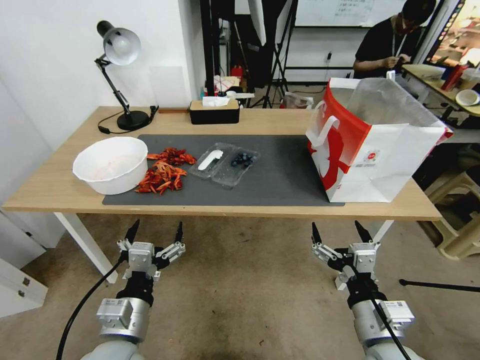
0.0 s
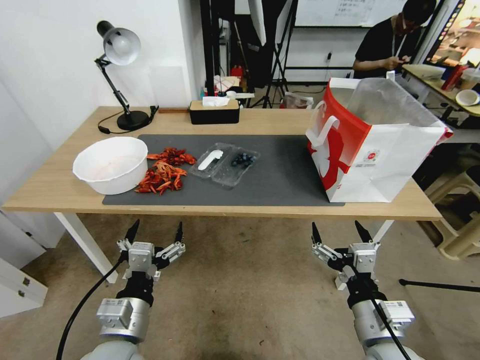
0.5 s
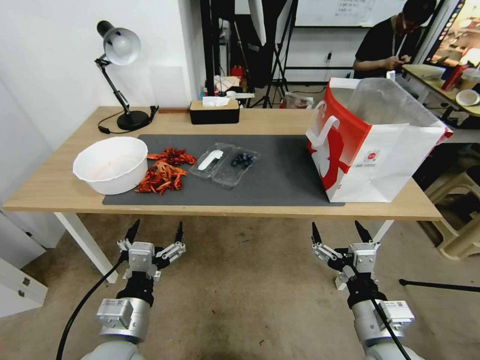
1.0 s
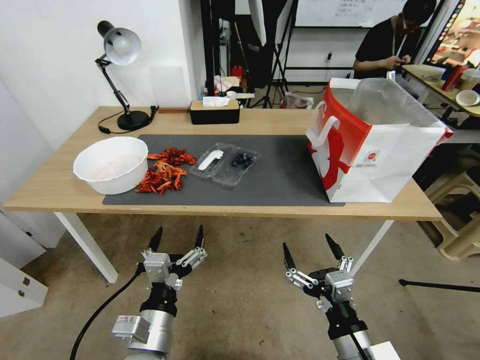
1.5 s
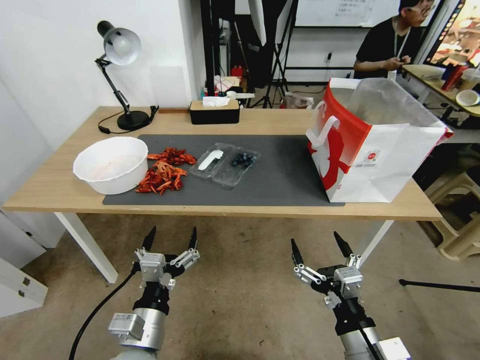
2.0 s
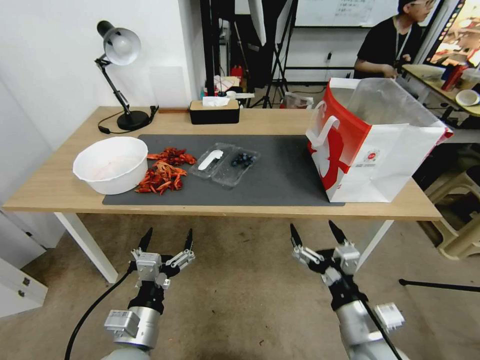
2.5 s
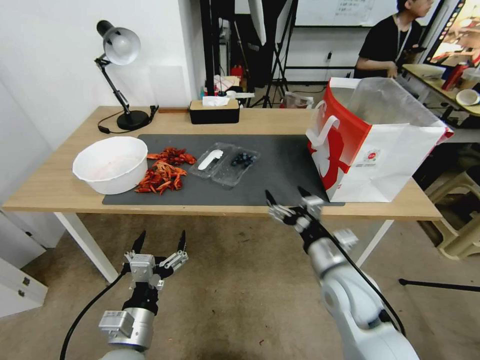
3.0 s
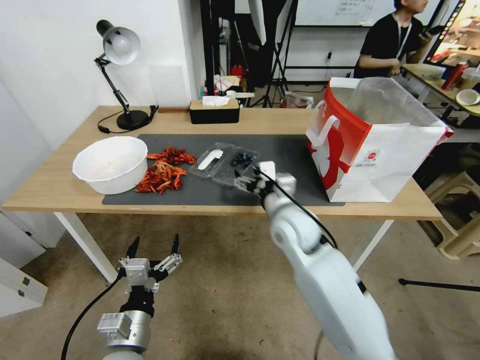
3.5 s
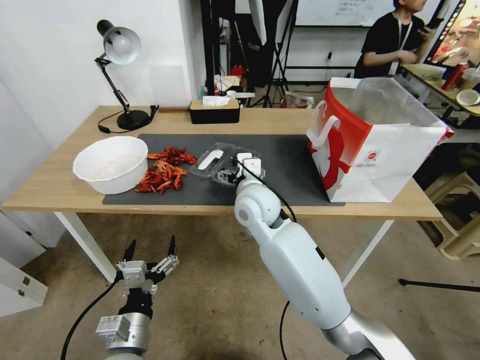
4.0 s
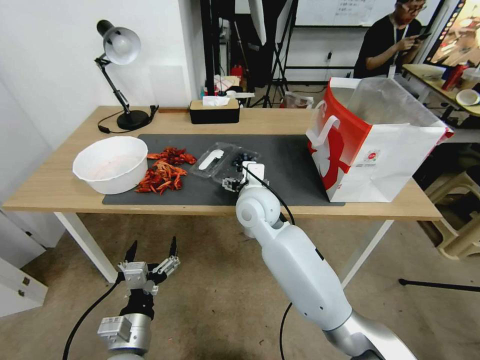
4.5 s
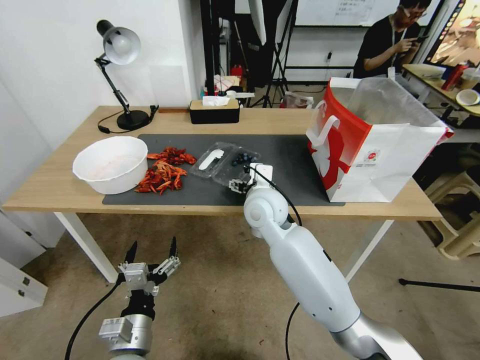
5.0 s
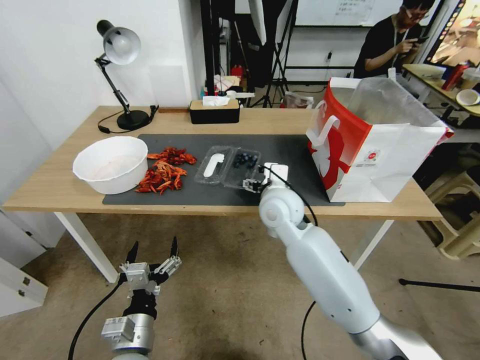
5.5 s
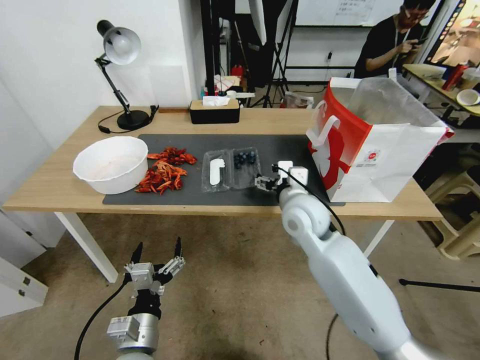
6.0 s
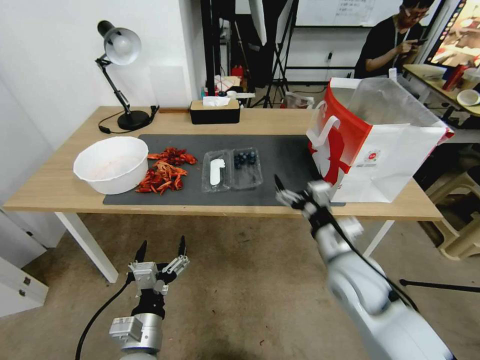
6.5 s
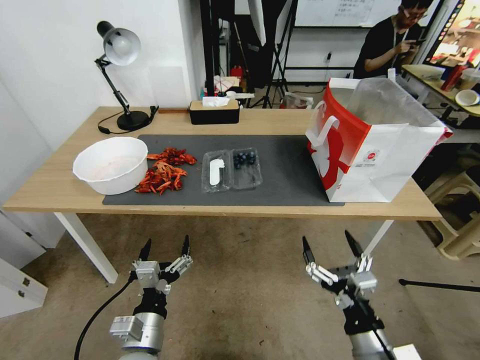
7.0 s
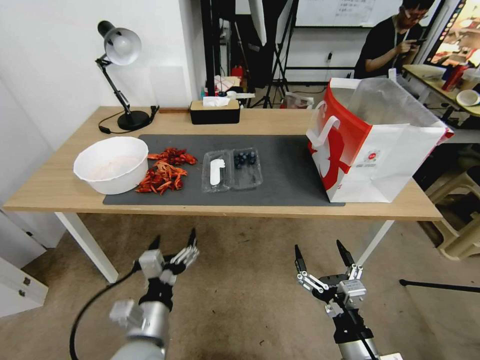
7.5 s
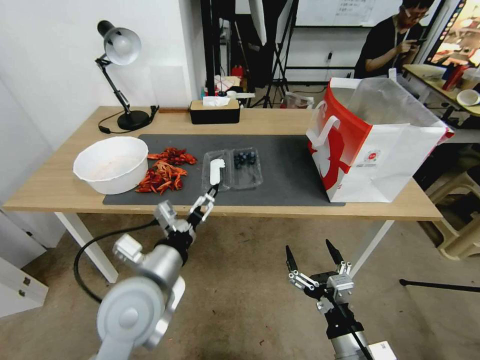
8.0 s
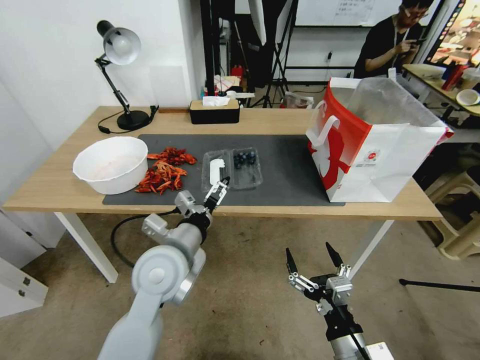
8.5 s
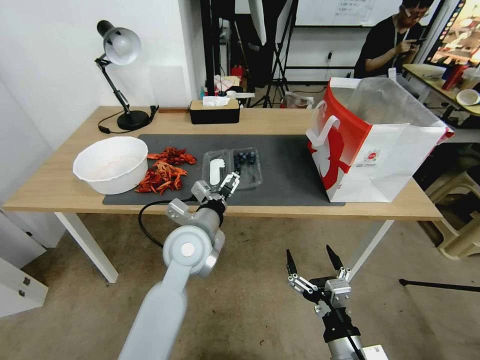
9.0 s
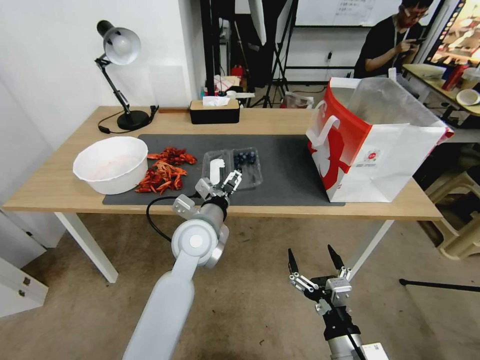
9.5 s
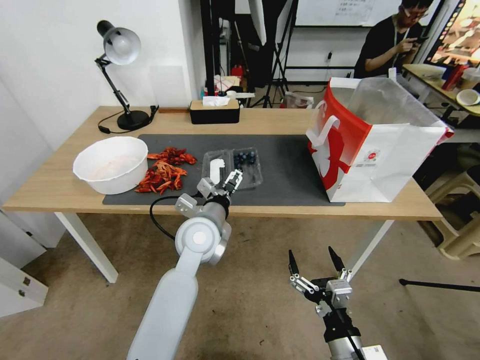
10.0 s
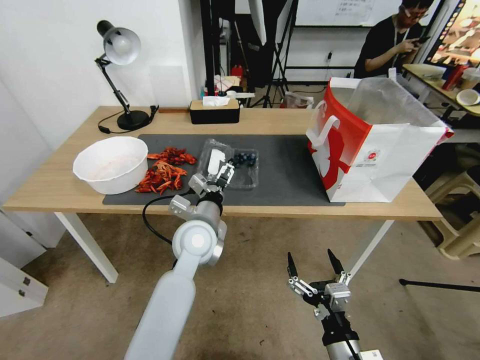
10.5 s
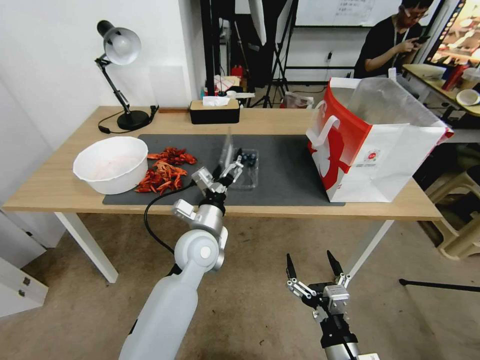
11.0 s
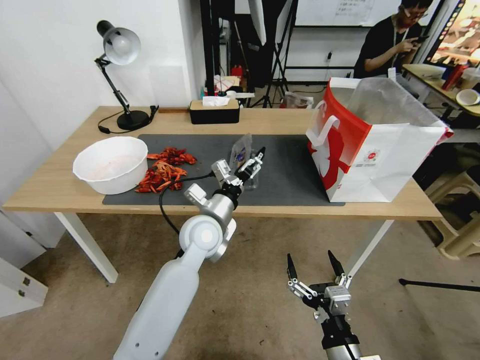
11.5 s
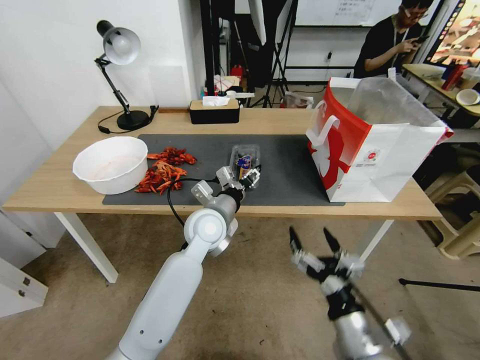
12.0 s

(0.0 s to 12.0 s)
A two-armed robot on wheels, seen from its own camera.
Task of the whole recording: Close the takeout container lid, then place the container into the takeout bag.
2.0 s - 4.0 s: The right gripper goes roughly 35 cm forward and to the left.
4.0 s - 6.0 s: The right gripper shifts about 10 cm to the right.
6.0 s - 8.0 s: The left gripper heads upward and forward, covering approximately 20 cm. Meanwhile the right gripper shifts roughly 30 cm backward and downward.
8.0 s - 10.0 s: The left gripper goes roughly 15 cm forward and to the right.
10.0 s - 12.0 s: The left gripper closes its fingers.

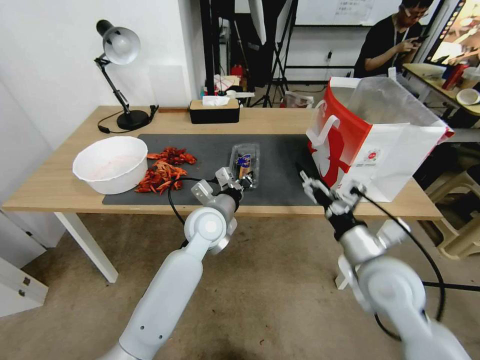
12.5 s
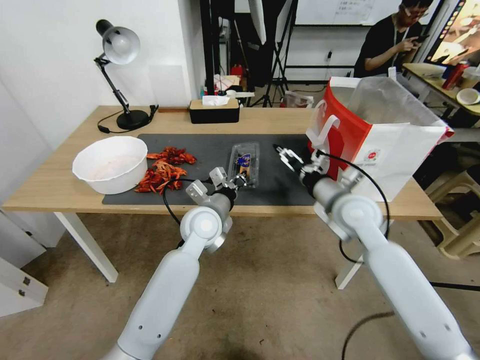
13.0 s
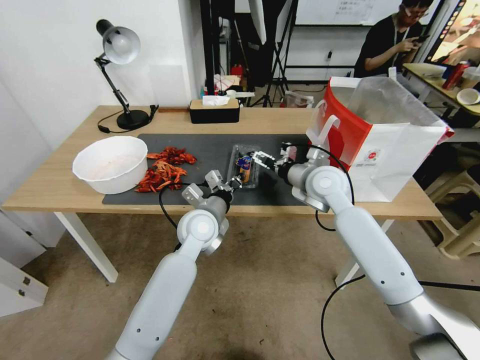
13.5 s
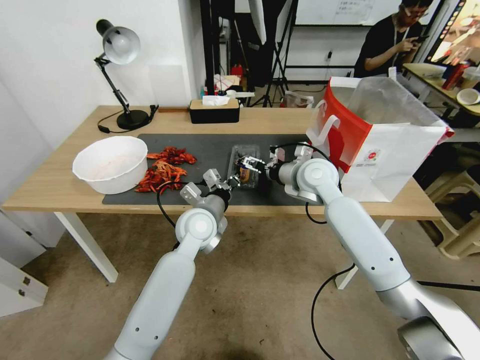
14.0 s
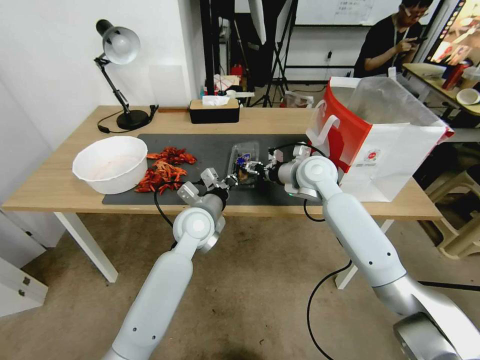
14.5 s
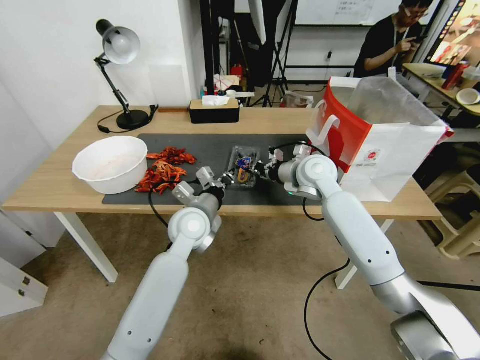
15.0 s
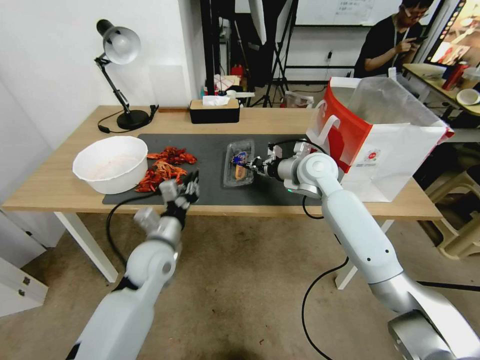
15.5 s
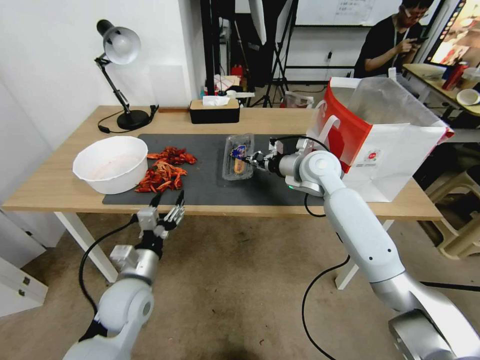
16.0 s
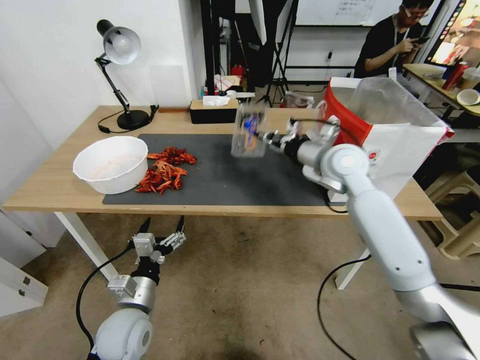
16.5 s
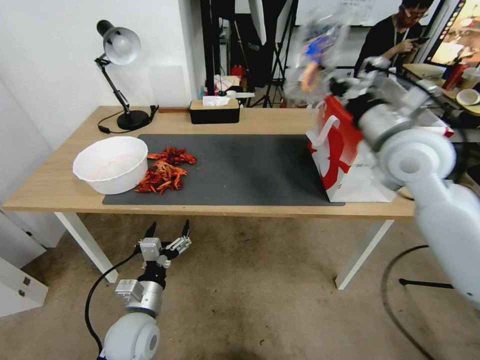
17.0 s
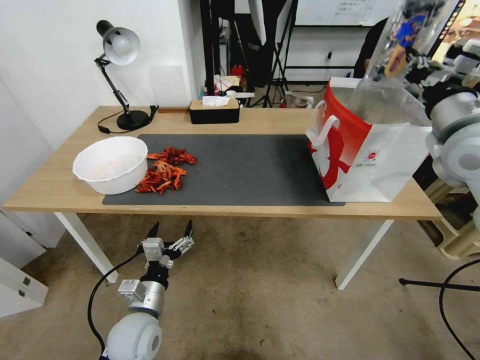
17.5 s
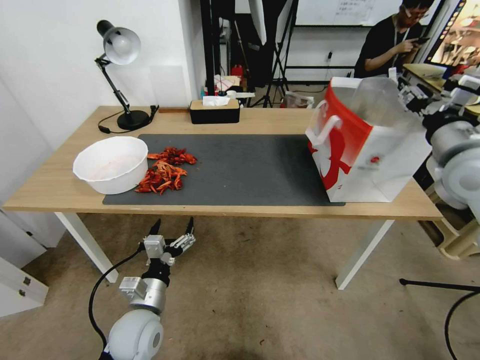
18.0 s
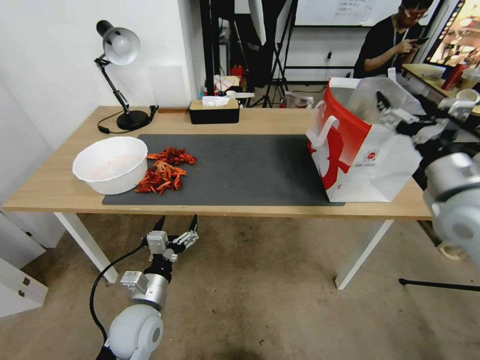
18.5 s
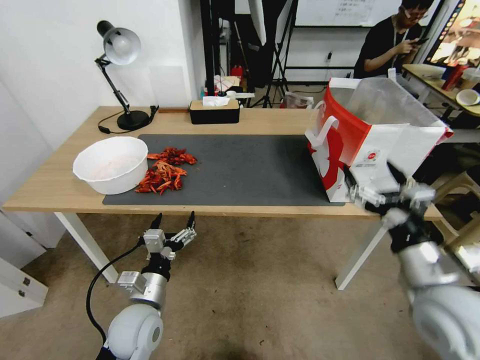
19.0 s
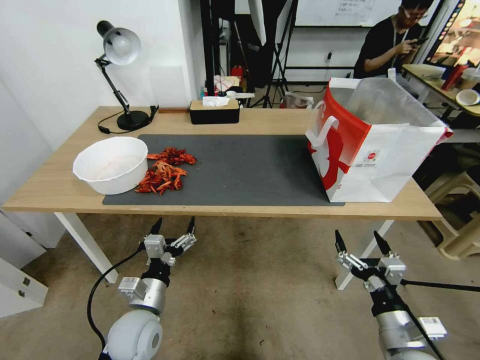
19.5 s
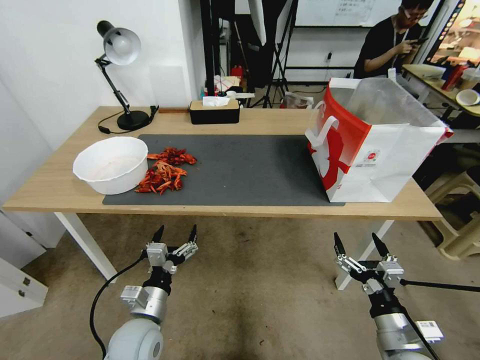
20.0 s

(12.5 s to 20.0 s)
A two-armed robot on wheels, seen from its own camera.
Task of the whole recording: Close the takeout container lid, then place the container into the takeout bag.
12.5 s - 14.5 s: The right gripper moves forward, roughly 25 cm, and closes.
14.5 s - 16.5 s: The right gripper moves upward, roughly 5 cm, and closes up. The left gripper travels backward, to the left and downward by approximately 25 cm, and opens.
16.5 s - 18.0 s: The right gripper goes roughly 20 cm to the right, backward and upward, and opens up.
18.0 s - 20.0 s: The right gripper goes roughly 40 cm downward and backward, and opens up.

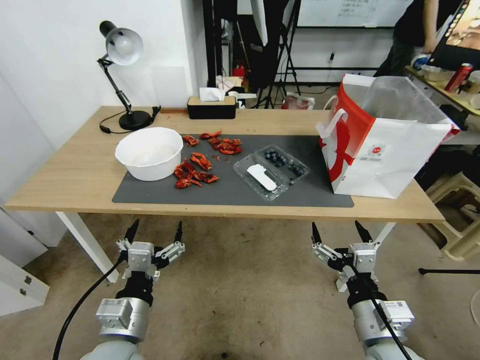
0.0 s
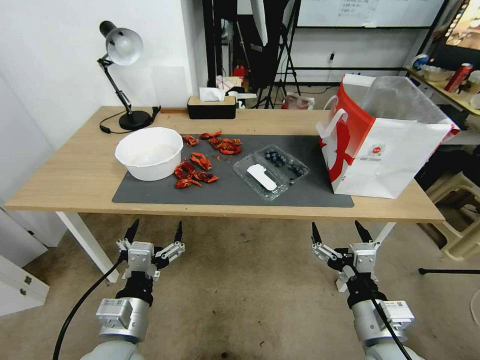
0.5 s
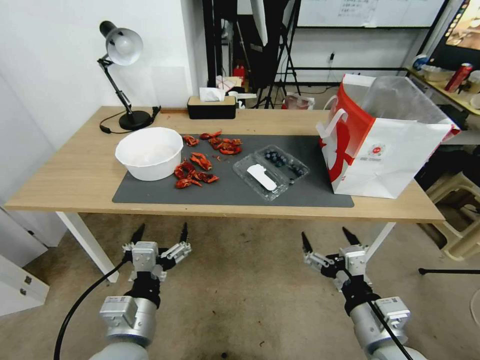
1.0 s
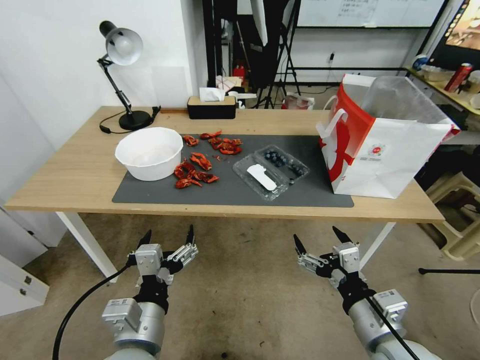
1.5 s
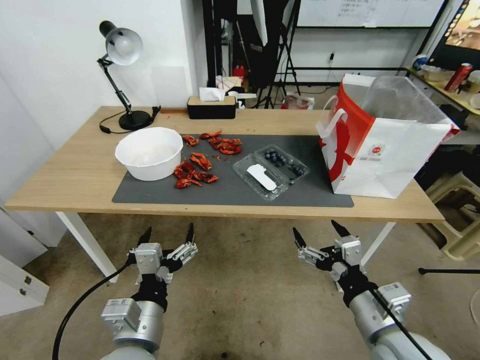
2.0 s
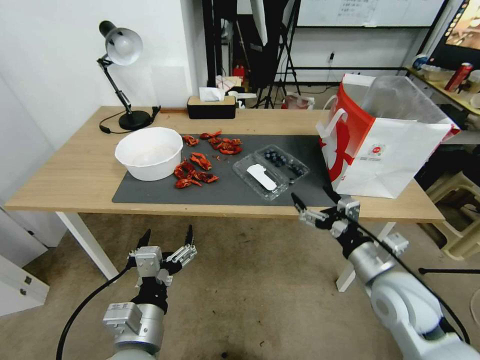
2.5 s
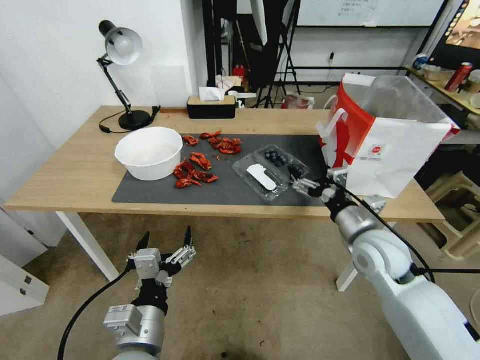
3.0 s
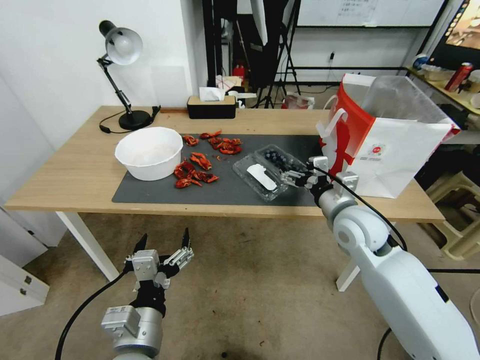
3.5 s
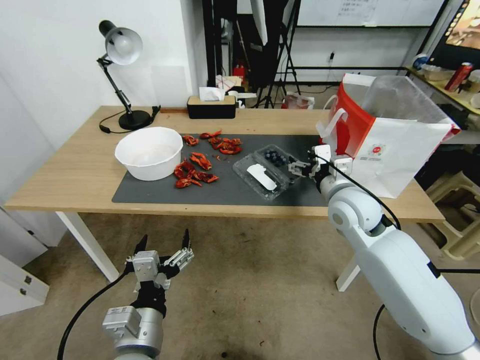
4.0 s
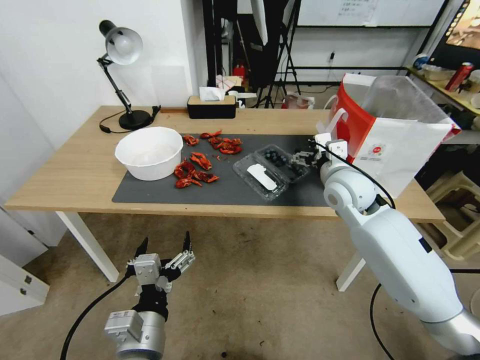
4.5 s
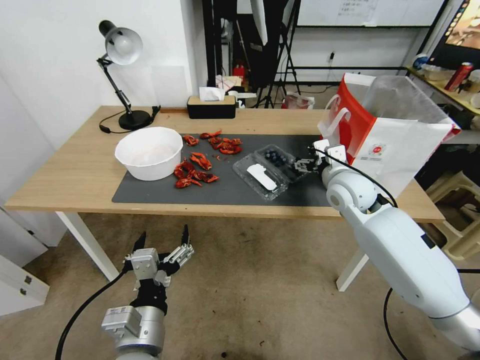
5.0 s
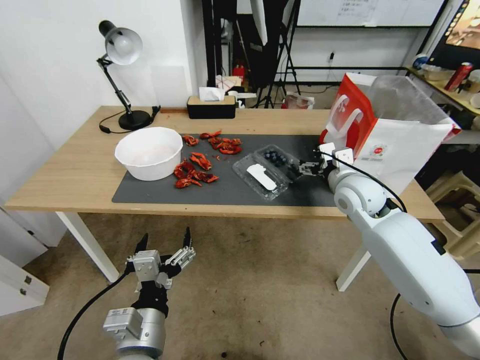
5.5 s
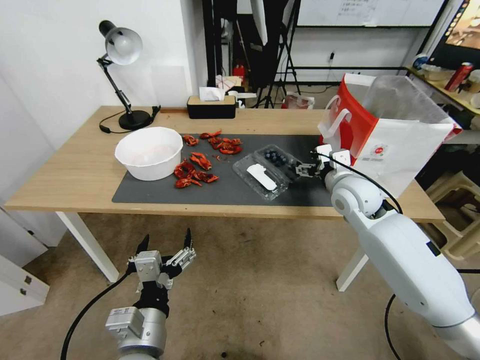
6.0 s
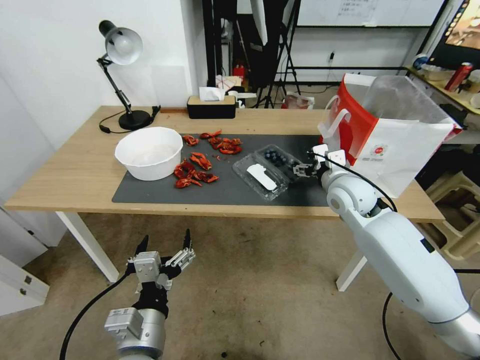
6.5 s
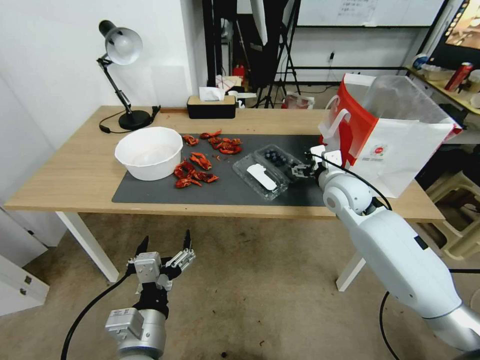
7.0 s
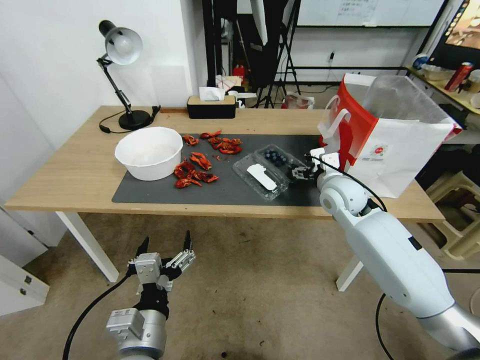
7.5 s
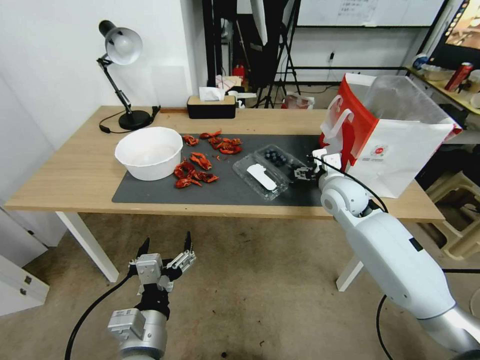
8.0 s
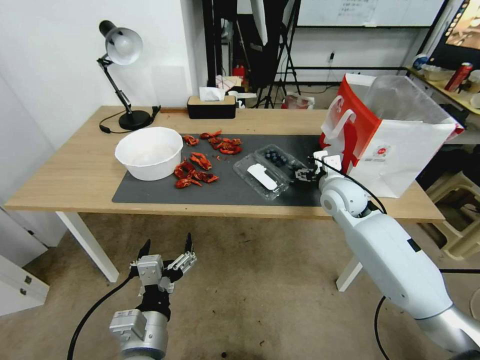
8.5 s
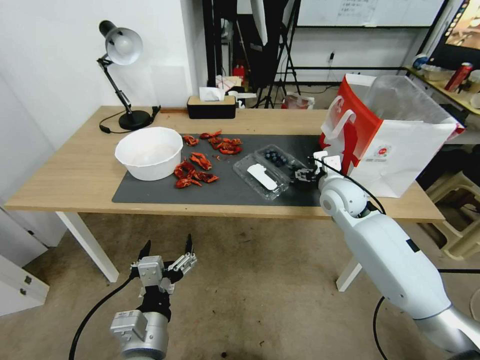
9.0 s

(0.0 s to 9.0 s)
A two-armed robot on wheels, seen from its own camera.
Task of the whole recording: Close the takeout container lid, then place the container into the takeout bag.
2.0 s - 4.5 s: The right gripper is displaced forward by approximately 30 cm.
4.5 s - 9.0 s: The grippers stay close to where they were, moving slightly.
